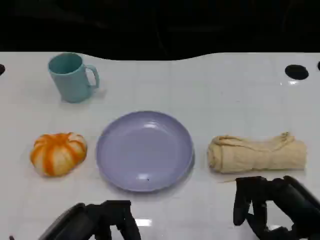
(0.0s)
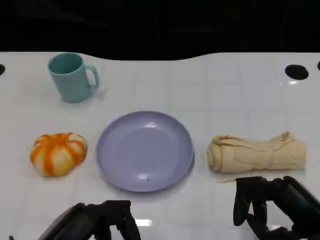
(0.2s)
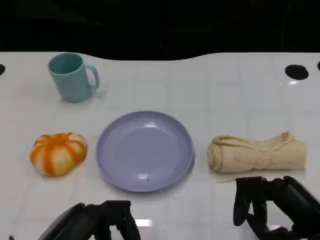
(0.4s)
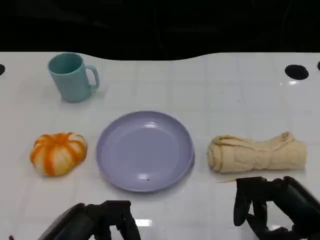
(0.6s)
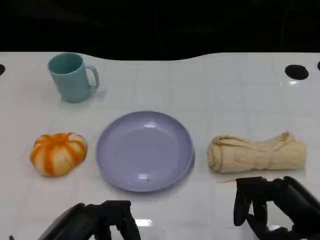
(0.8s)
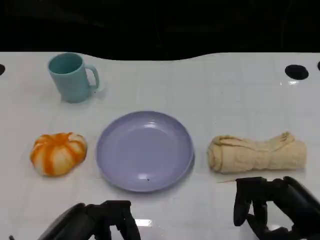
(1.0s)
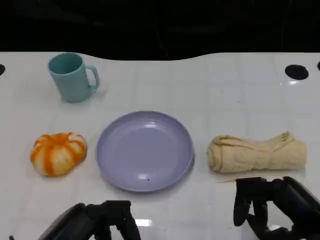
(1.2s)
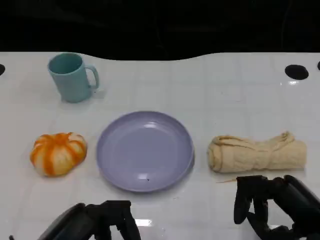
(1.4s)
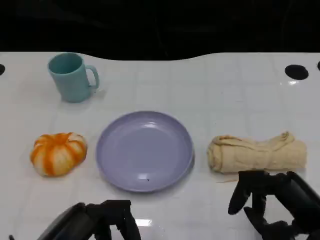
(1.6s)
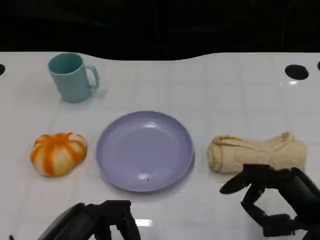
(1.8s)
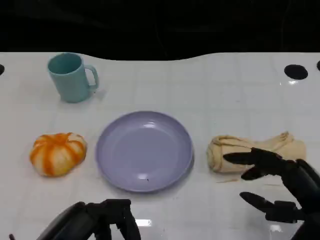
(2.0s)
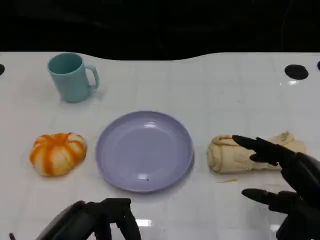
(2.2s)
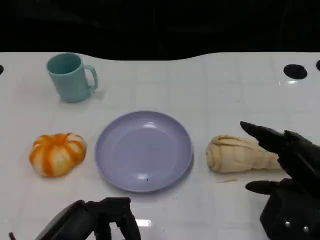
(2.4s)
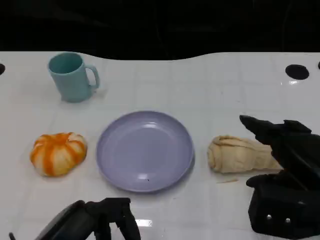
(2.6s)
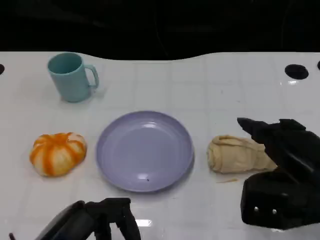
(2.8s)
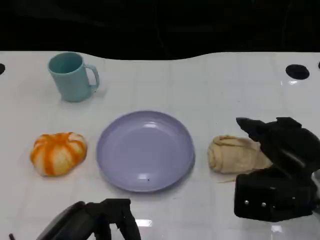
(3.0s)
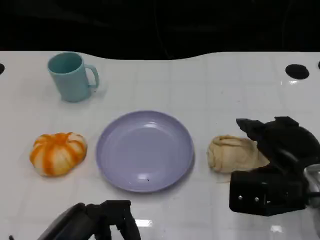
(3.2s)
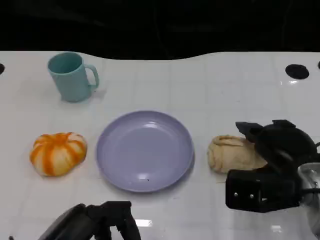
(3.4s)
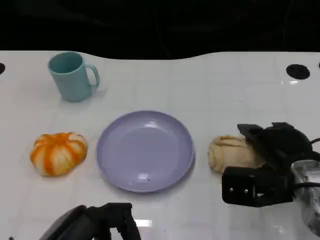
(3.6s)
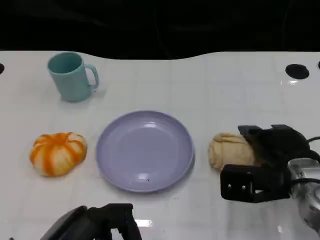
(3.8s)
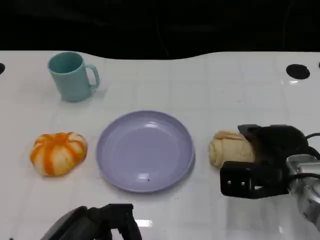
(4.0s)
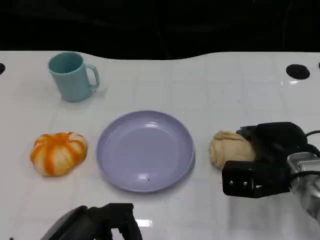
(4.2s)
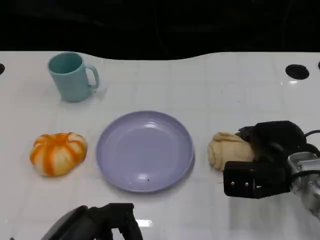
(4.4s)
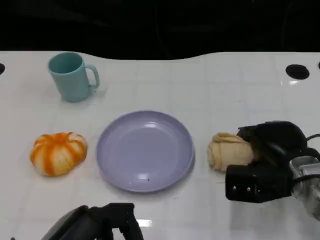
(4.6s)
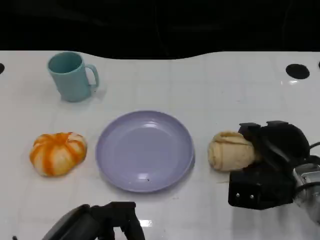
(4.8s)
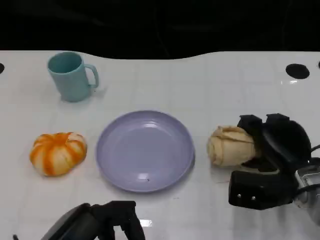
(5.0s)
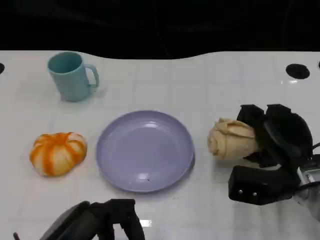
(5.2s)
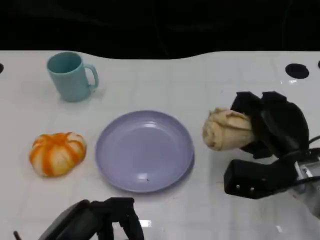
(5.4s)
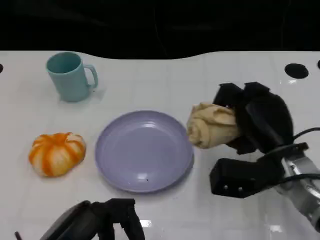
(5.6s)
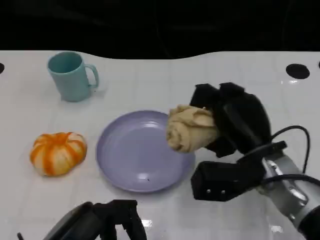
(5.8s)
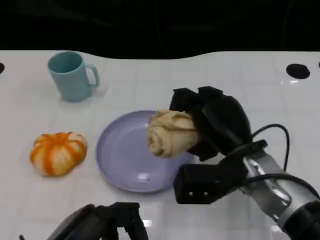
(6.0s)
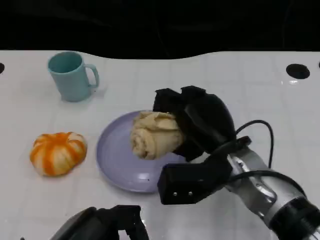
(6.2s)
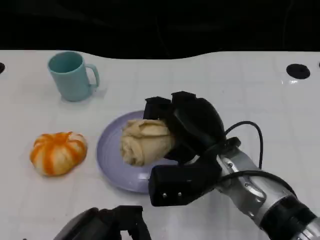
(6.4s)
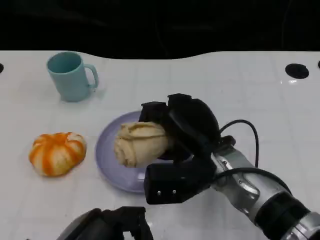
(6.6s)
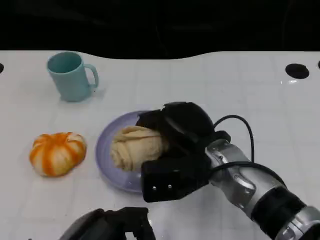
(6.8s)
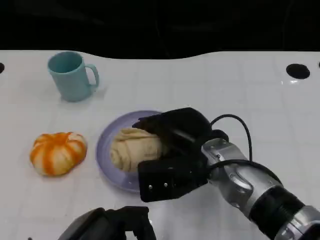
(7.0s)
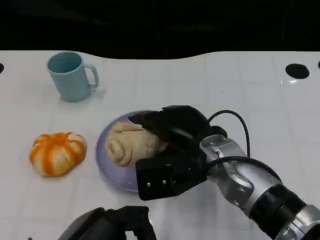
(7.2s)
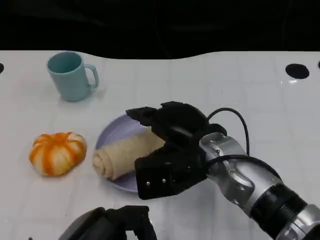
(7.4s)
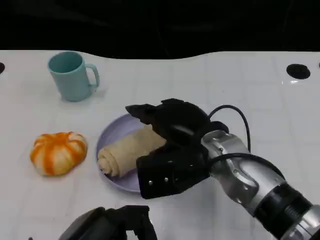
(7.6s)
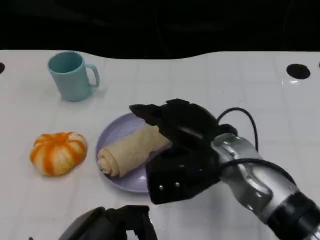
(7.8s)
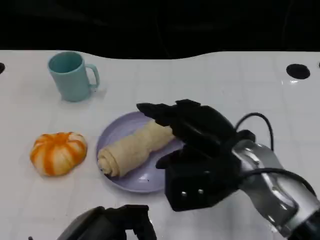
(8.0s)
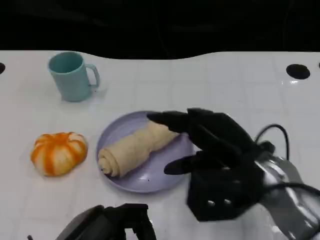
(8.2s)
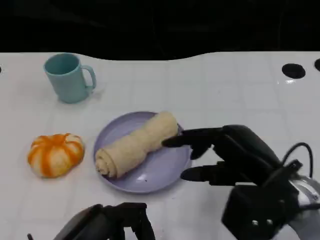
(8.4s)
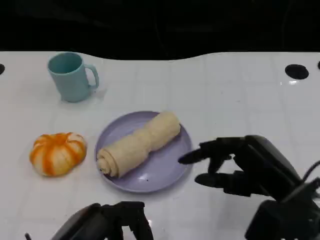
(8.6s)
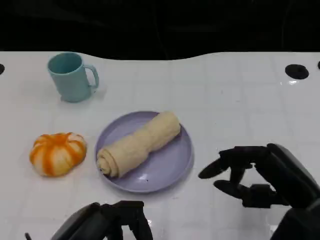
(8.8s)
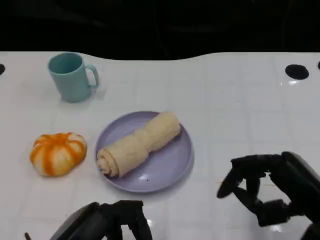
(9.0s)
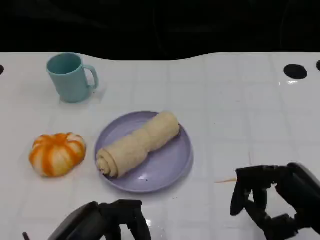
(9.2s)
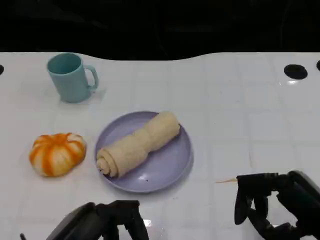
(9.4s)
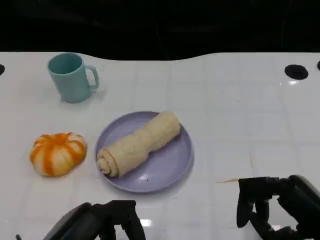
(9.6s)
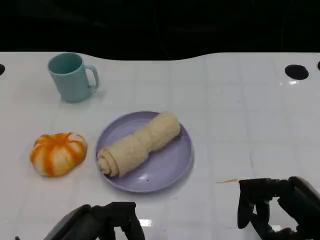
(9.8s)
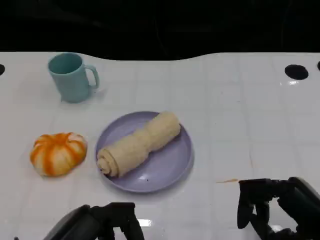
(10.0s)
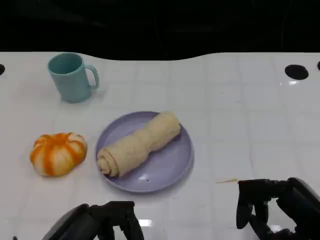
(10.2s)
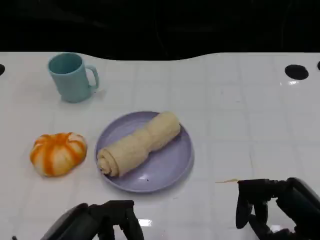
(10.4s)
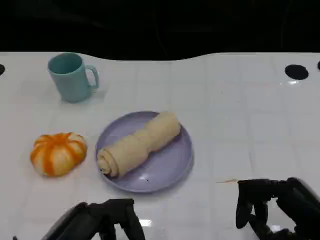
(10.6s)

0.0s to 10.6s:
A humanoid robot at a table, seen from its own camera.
Task of the whole recording: Grasp the towel on the left side of the plate with the left hand and place it into the plate.
0.0s to 1.6s: Both hands stay about where they are.
1.6s to 3.0s: The right hand heads forward, covering some 5 cm.
3.0s to 4.6s: The right hand travels downward and forward by some 10 cm.
4.6s to 6.0s: The right hand is displaced to the left by approximately 10 cm.
6.0s to 7.6s: The right hand ends up some 5 cm from where it was.
7.6s to 9.0s: The right hand shifts approximately 20 cm to the right and backward.
9.0s to 10.6s: There are only small adjustments of the hands.

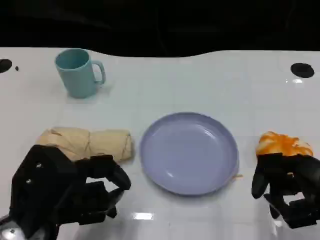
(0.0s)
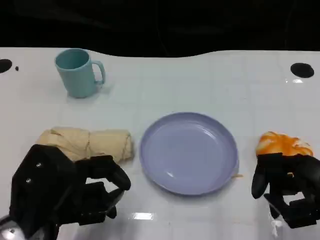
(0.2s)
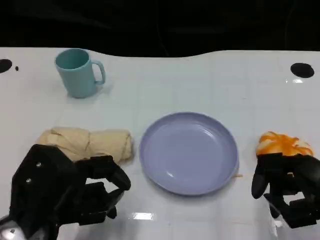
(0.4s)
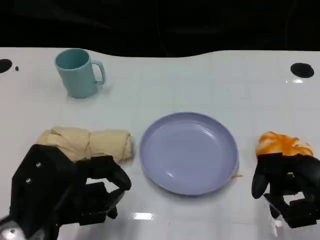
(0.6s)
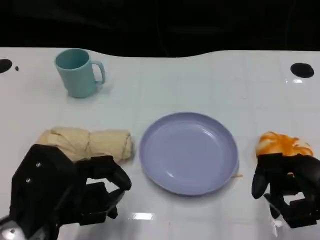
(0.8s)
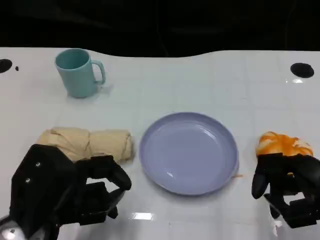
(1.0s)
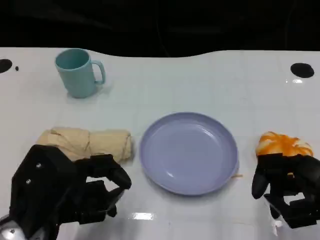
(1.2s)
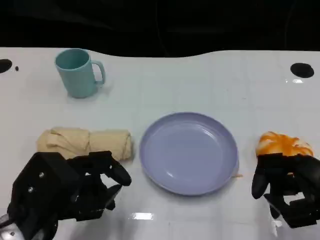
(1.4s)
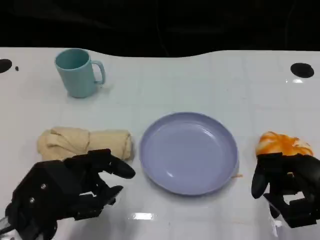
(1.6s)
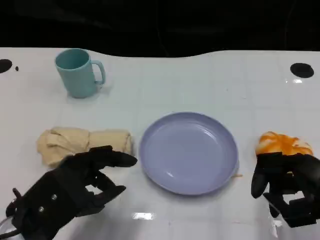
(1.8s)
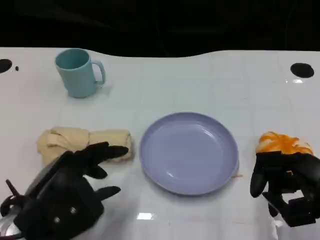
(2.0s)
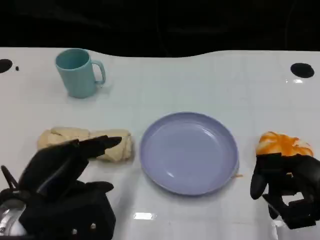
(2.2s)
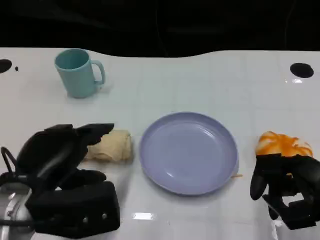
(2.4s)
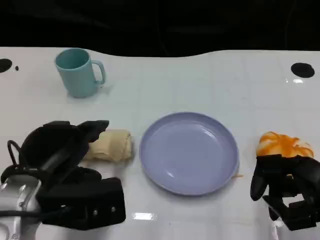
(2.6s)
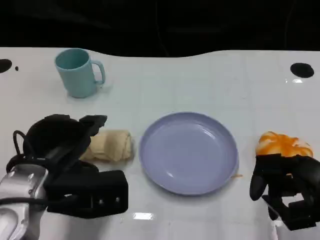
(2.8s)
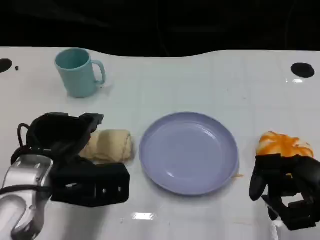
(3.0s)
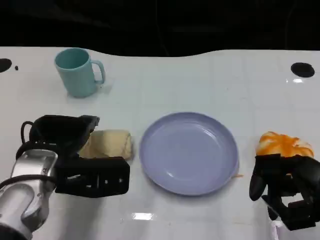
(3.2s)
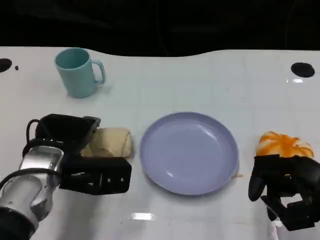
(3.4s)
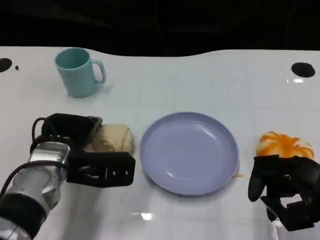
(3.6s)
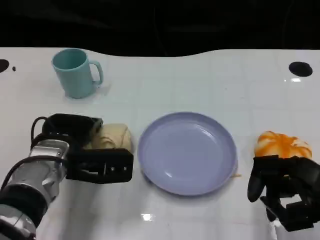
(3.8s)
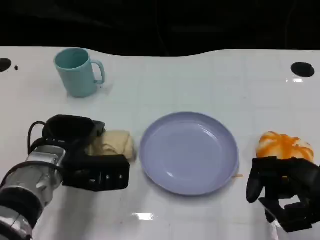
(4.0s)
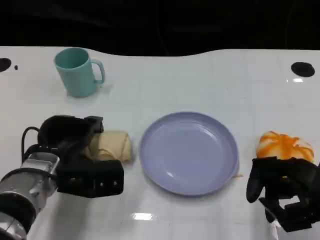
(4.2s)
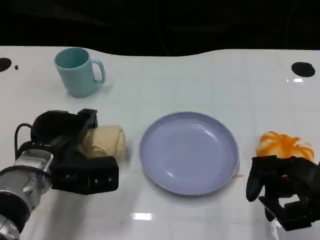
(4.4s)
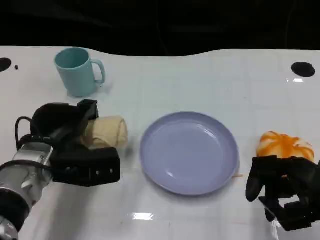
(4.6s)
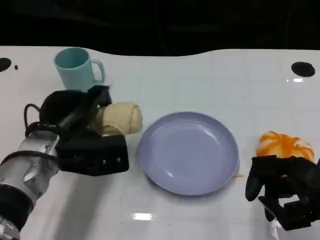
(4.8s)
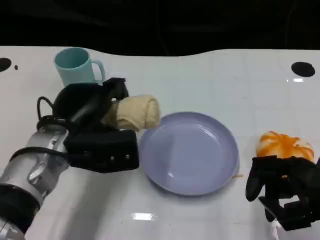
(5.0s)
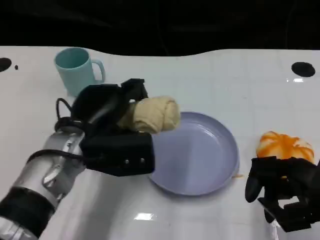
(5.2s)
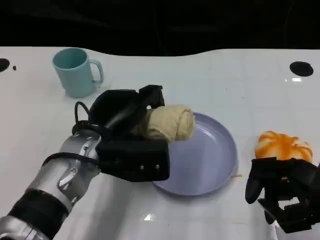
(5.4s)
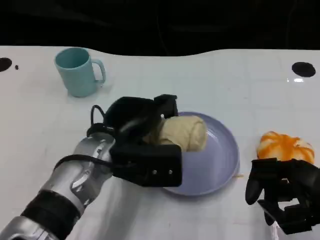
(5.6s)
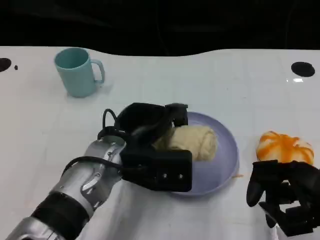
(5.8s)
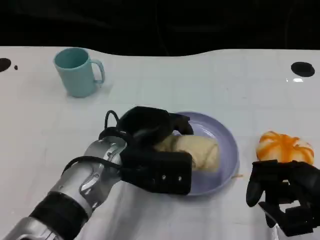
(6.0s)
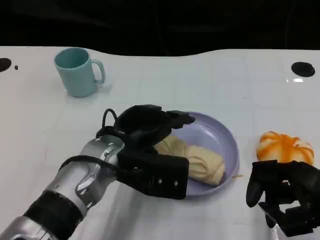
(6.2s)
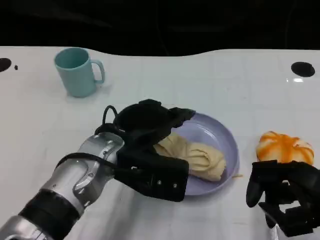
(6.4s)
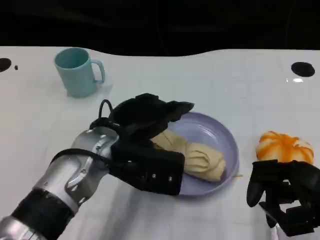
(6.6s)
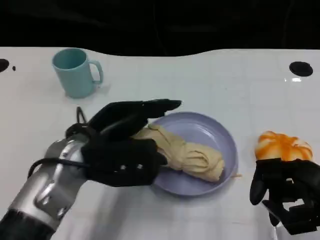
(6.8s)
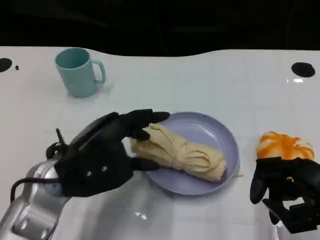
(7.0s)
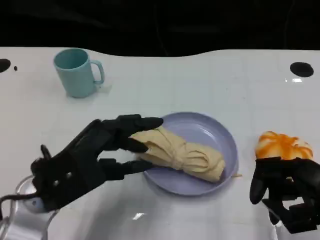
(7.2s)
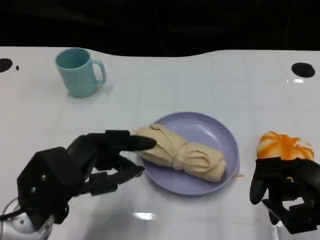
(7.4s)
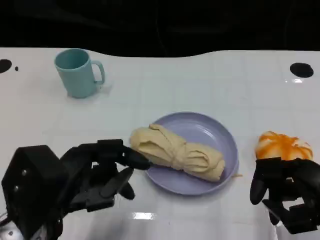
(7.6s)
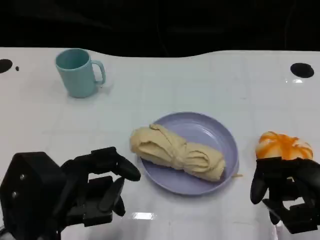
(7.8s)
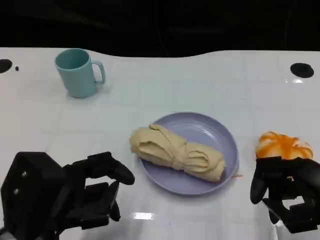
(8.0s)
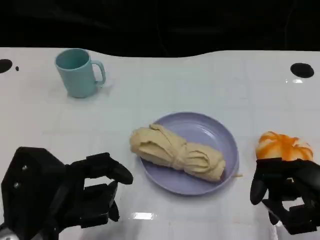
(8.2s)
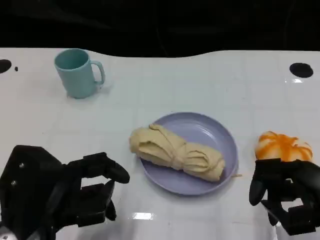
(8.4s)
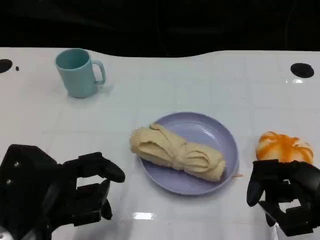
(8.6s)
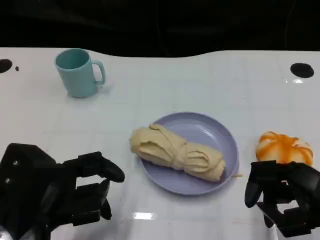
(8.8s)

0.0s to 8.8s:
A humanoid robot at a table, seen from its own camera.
Task of the whole recording: Grasp the towel on the left side of the plate with the left hand and place it into the plate.
0.0s to 1.4s: There are only small adjustments of the hands.
1.4s to 3.0s: The left hand goes roughly 5 cm forward.
3.0s to 4.4s: The left hand ends up about 5 cm from where it was.
4.4s to 5.8s: The left hand moves to the right, approximately 10 cm.
5.8s to 7.4s: The left hand moves to the left and backward, roughly 15 cm.

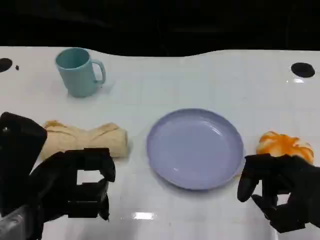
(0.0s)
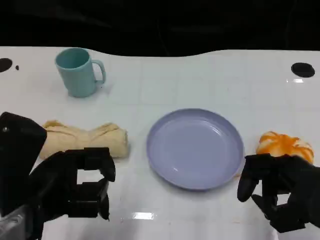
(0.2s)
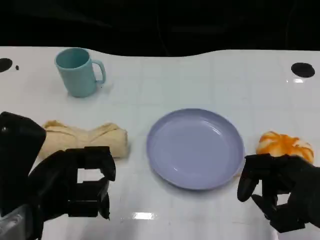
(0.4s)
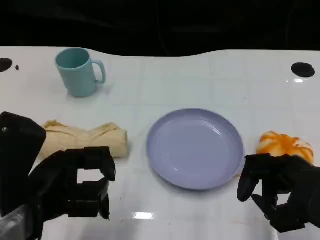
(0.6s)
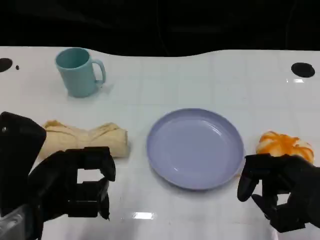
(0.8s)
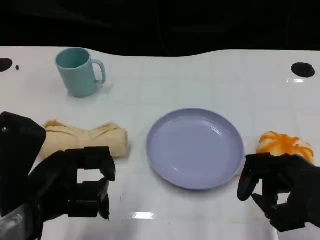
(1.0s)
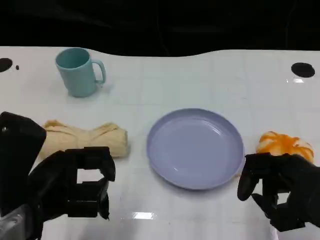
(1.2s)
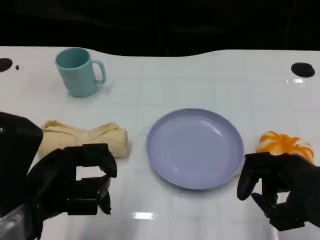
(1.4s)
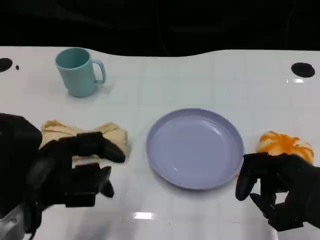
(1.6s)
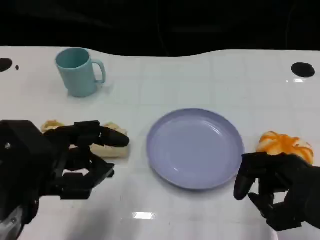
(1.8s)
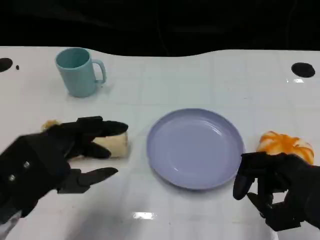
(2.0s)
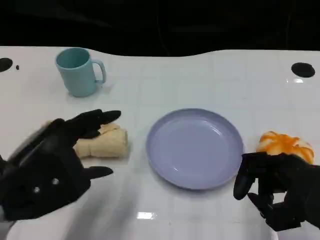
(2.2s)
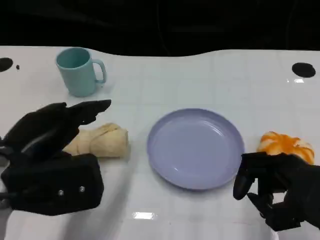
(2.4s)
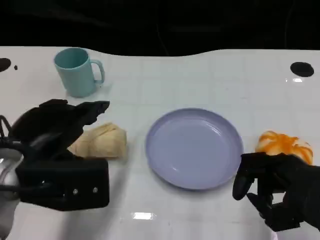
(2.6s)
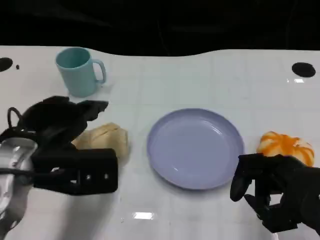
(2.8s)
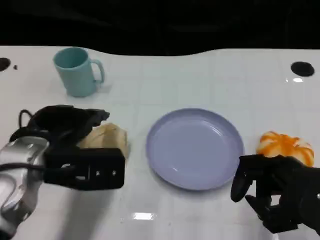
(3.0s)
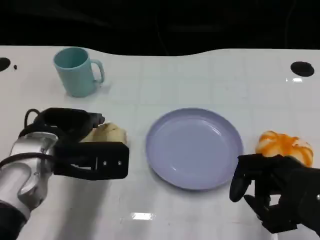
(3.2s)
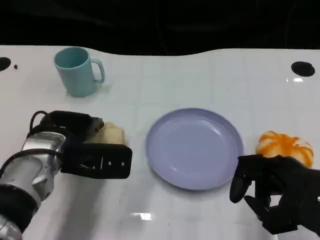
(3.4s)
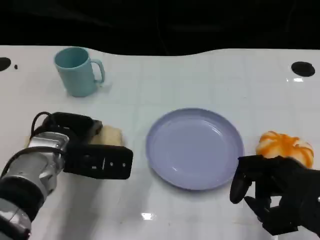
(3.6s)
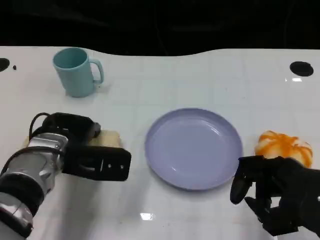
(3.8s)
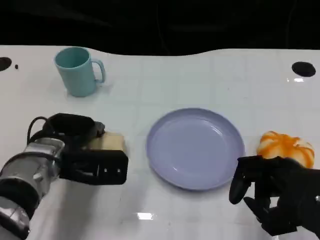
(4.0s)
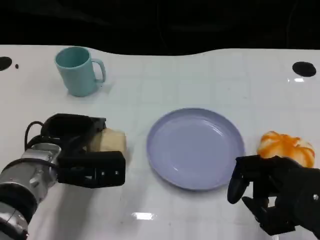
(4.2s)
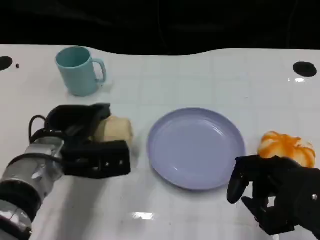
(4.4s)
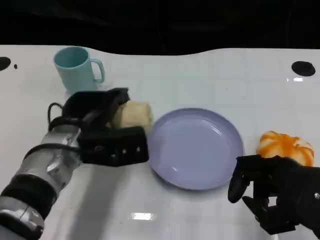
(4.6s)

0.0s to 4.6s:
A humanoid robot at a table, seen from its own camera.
Task of the whole recording: Grasp the towel on the left side of the plate with the left hand and place it into the plate.
0.0s to 1.6s: The hands make only small movements.
1.6s to 3.0s: The left hand goes roughly 10 cm forward.
3.0s to 4.6s: The left hand shifts by some 5 cm.
